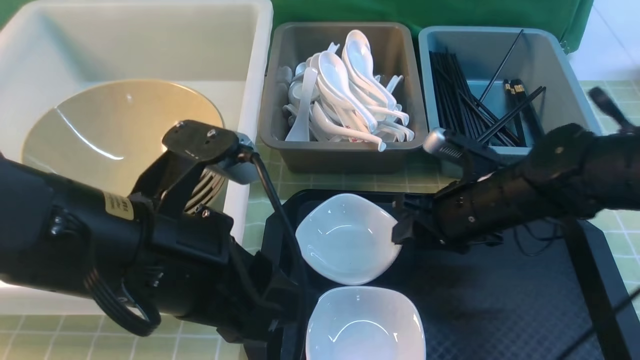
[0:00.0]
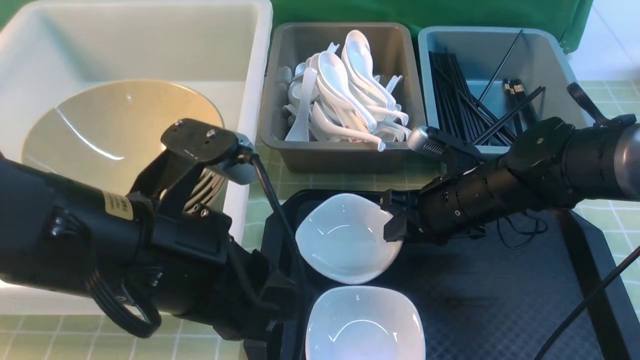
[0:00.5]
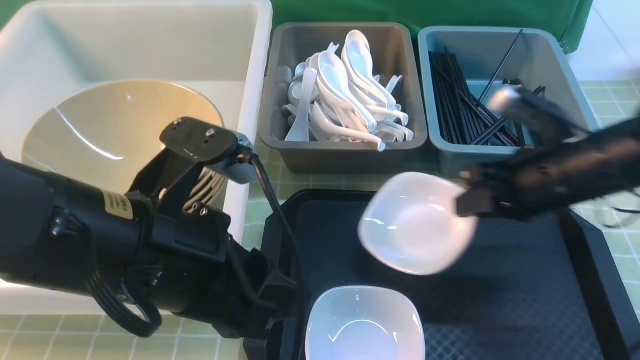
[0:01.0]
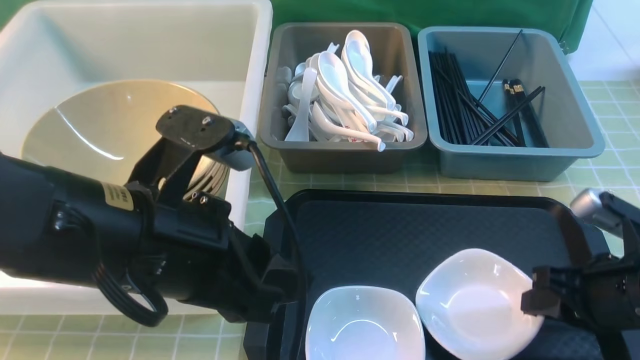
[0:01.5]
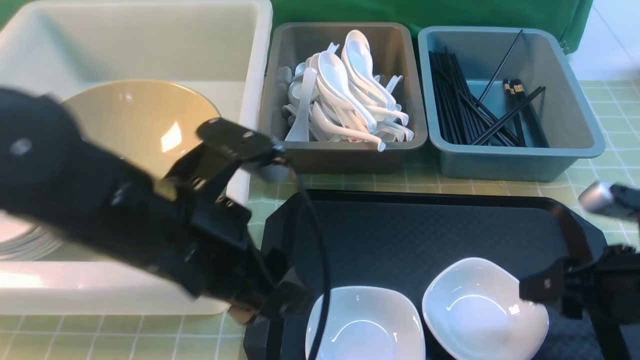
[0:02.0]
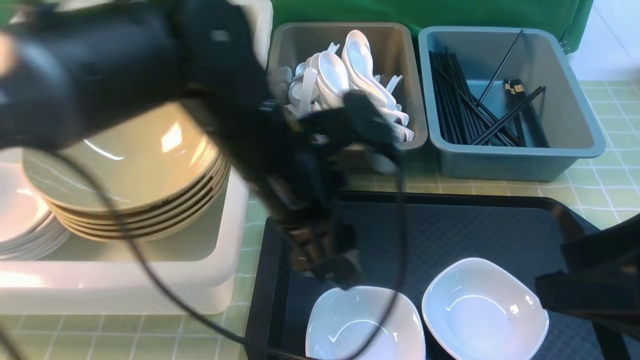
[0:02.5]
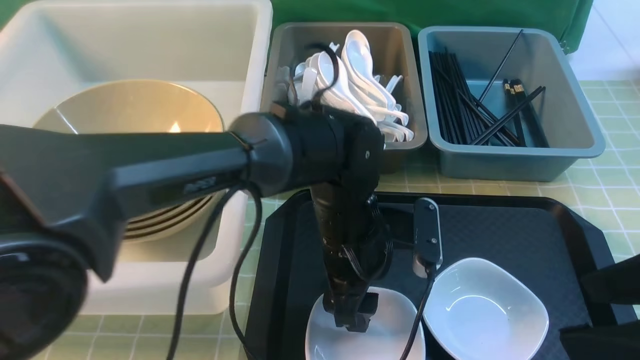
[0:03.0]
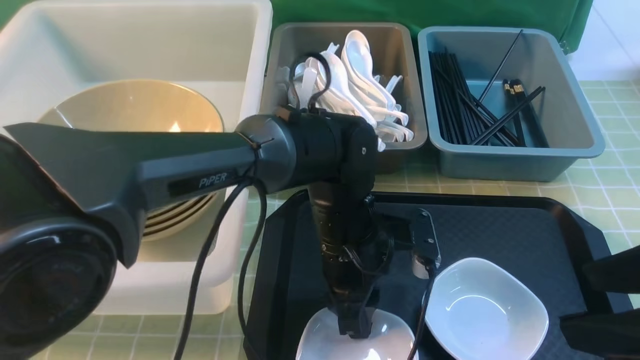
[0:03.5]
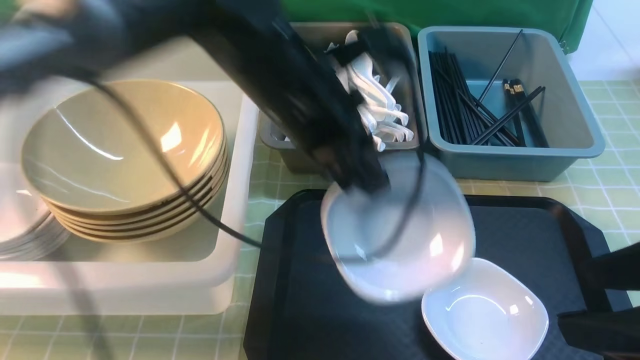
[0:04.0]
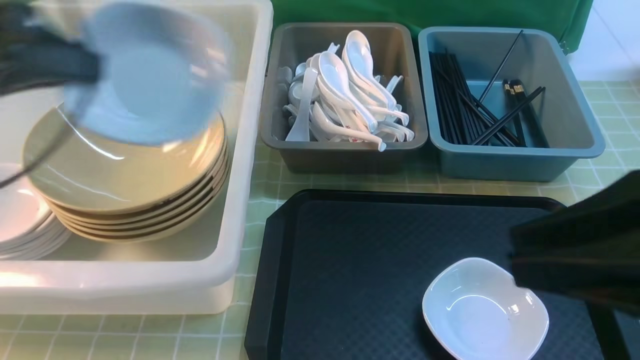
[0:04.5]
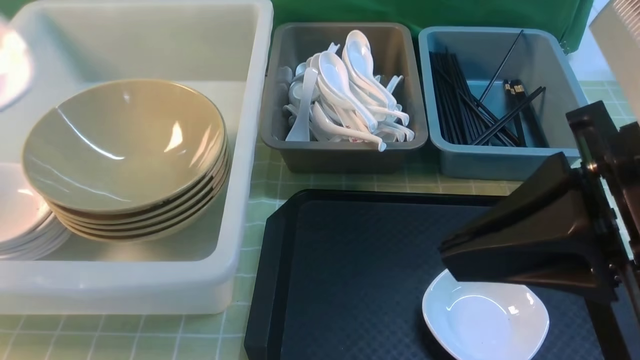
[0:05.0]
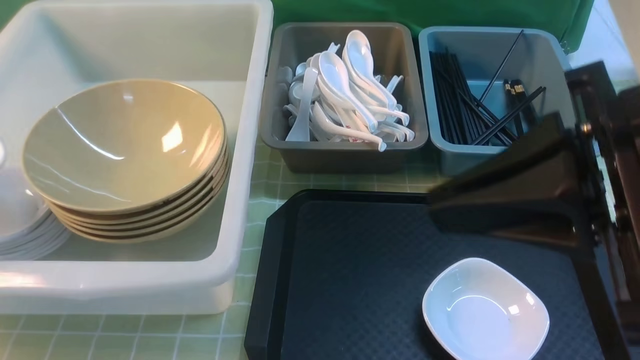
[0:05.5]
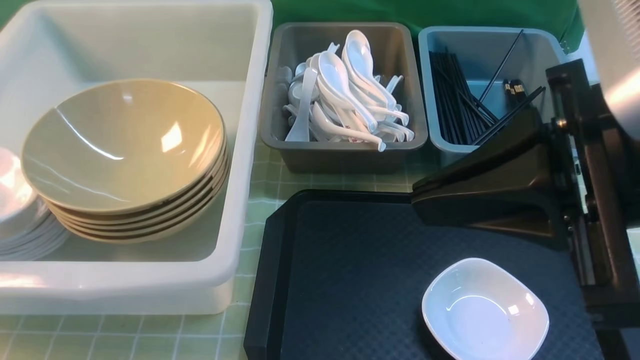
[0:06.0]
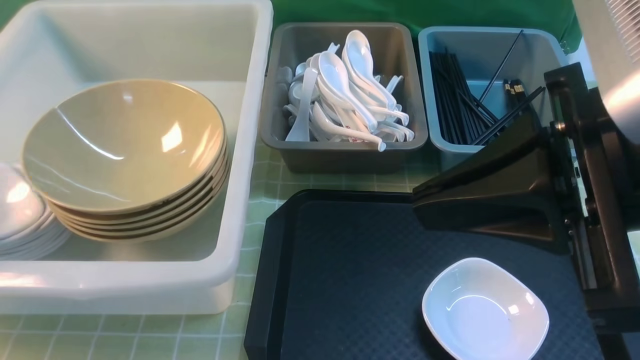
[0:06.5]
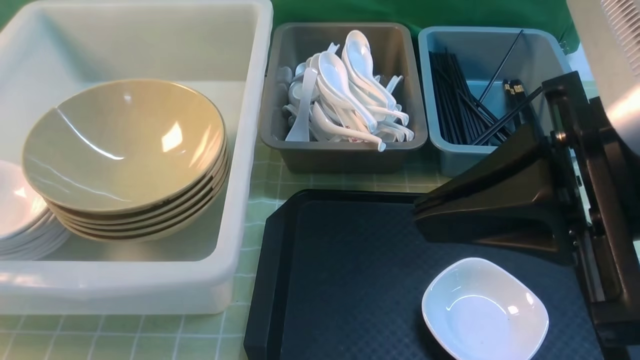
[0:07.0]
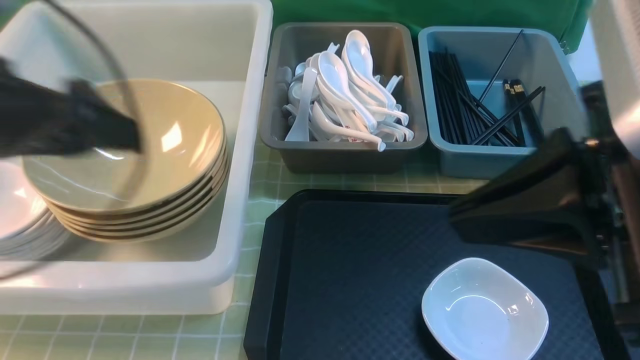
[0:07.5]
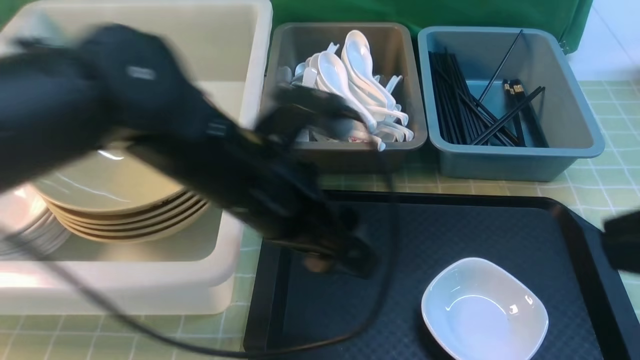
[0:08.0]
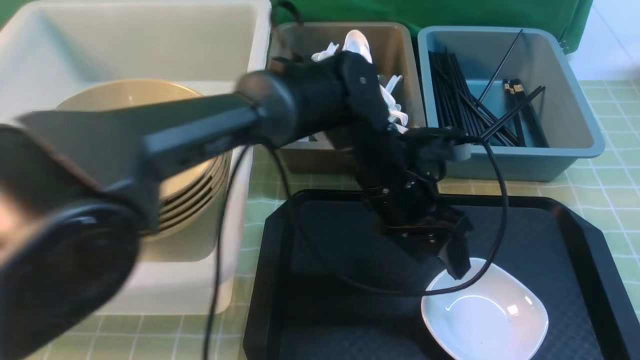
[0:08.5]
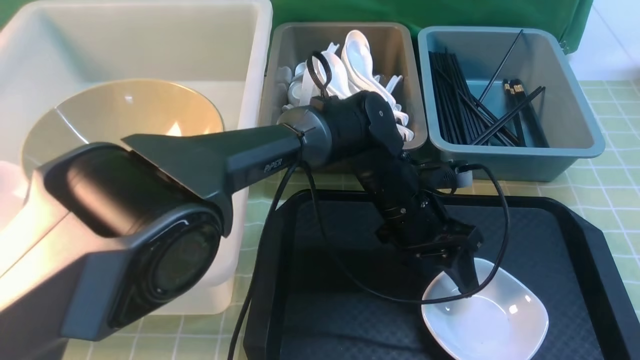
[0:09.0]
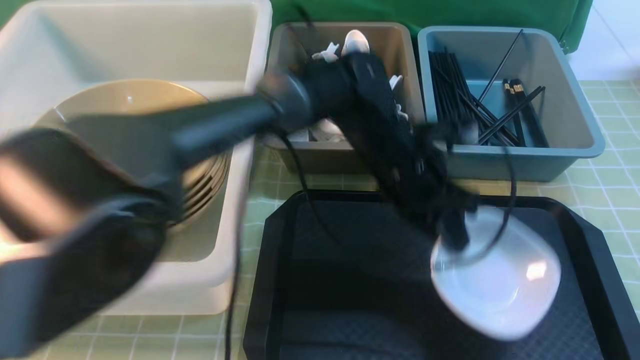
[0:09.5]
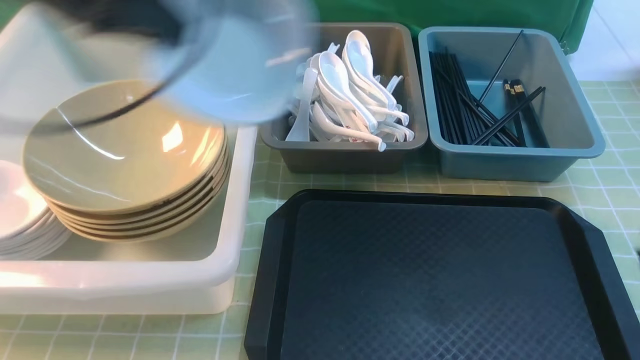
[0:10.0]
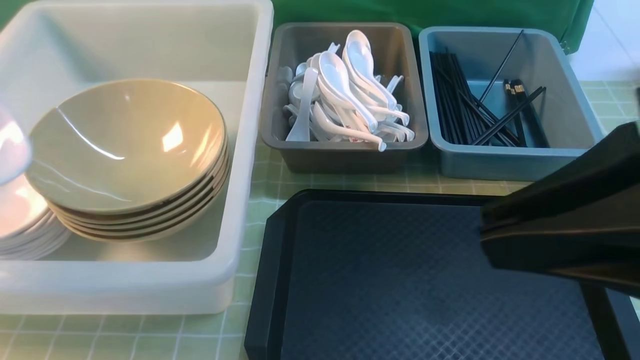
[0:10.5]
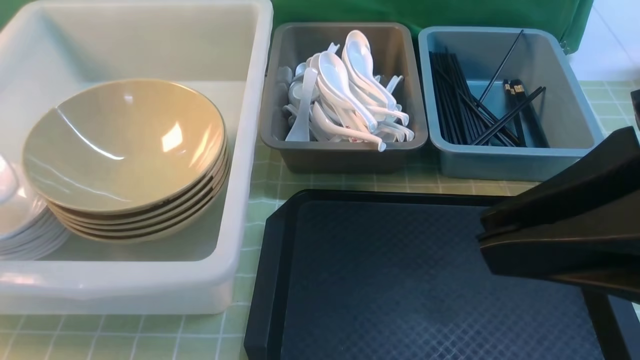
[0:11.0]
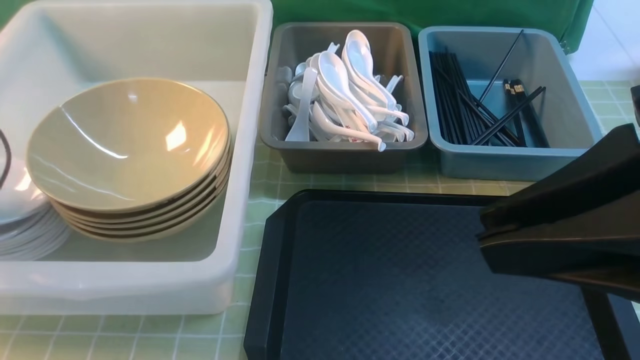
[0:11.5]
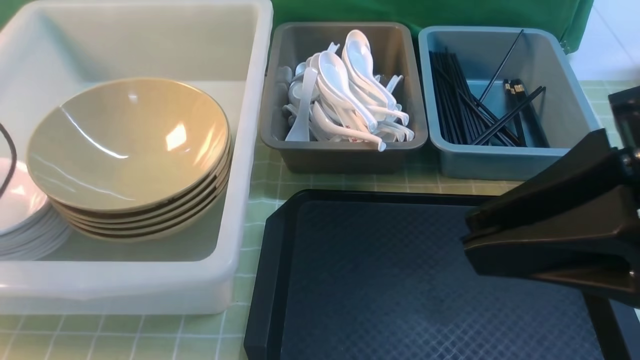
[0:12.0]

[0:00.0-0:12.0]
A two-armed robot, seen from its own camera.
Task of the whole recording: on green table put chopsticks spoon bowls plates into blue grey white boxes.
Step, 0:01.0 to 0:02.0: use the right arm to put the plate on the tray.
Step, 0:02.5 to 0:03.5: use the left arm to grab the plate.
Step, 0:04.0 to 0:06.5: use the left arm to put the plate into the large storage box on the left.
Step, 0:07.0 to 0:09.0: use the left arm to grab the plate.
0:00.0 to 0:02.0: The right gripper shifts approximately 15 cm backward and to the right, and closes, then reopens.
0:02.0 to 0:04.0: The left gripper travels forward by about 10 cm, reaches roughly 15 cm downward, then returns, and closes up; the right gripper heads upward and backward, covering roughly 15 cm.
0:04.0 to 0:06.0: The left gripper shifts about 40 cm to the left. Meanwhile the right gripper heads to the left and upward, covering roughly 10 cm, and closes up.
0:06.0 to 0:08.0: The right gripper travels backward and to the right by some 10 cm. Meanwhile the left gripper moves to the right, about 40 cm, and opens its fingers.
0:08.0 to 0:10.0: The left gripper moves to the left and upward, roughly 20 cm, and closes its fingers.
0:10.0 to 0:12.0: The left gripper is displaced to the left and downward by approximately 20 cm, and opens its fingers. The right gripper shifts by roughly 5 cm.

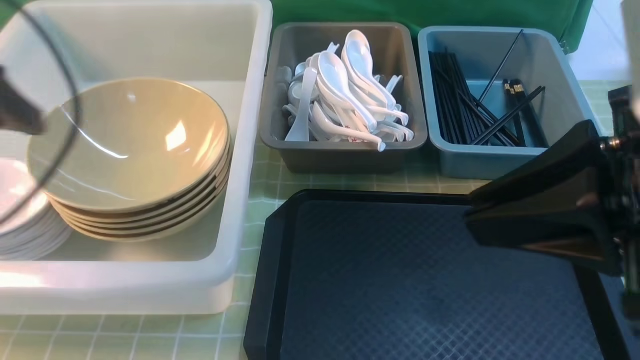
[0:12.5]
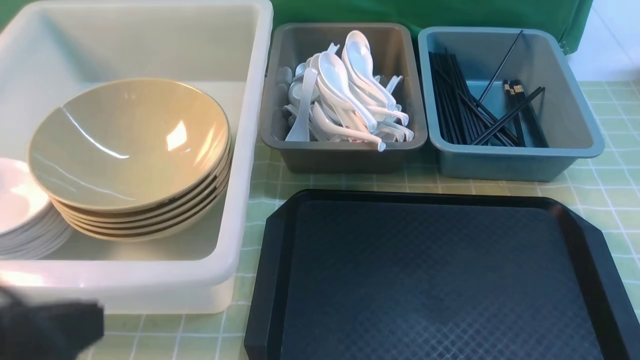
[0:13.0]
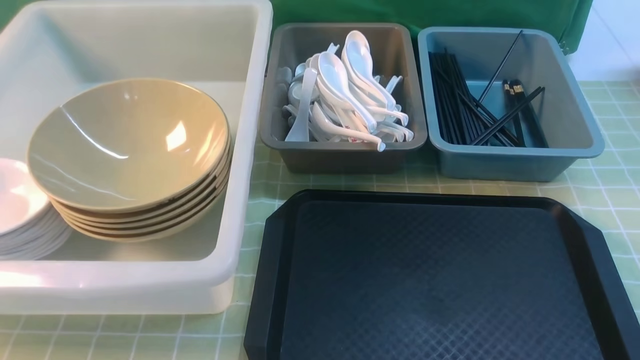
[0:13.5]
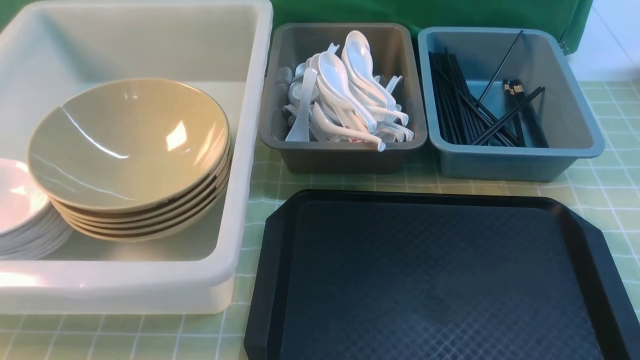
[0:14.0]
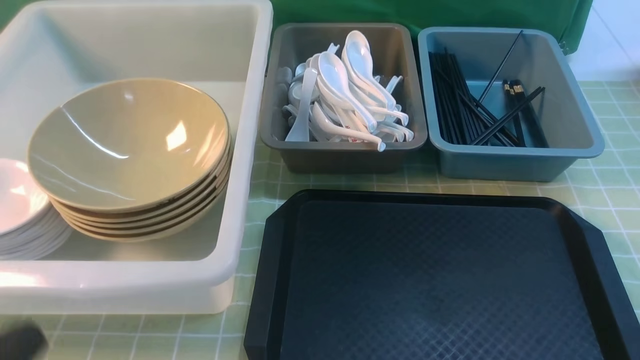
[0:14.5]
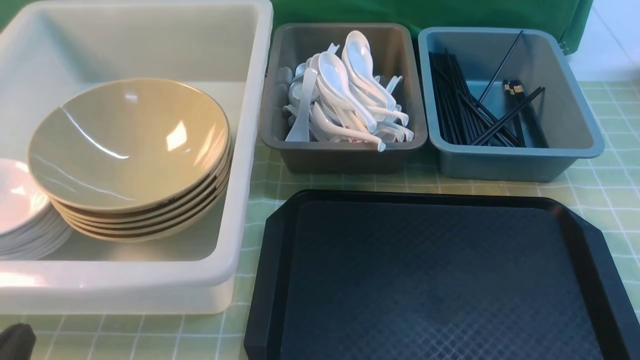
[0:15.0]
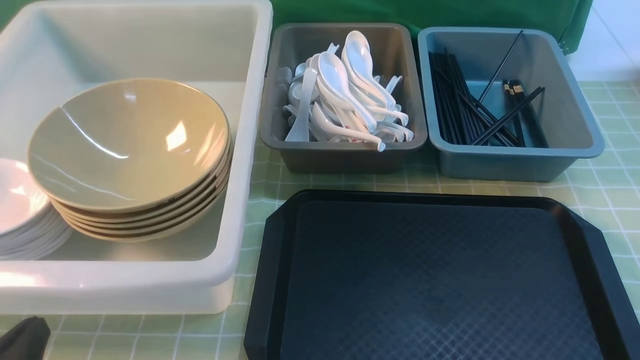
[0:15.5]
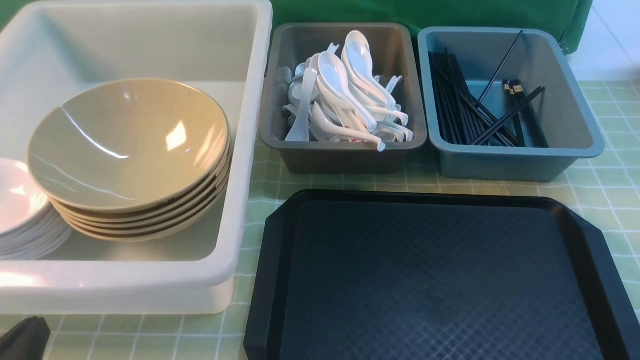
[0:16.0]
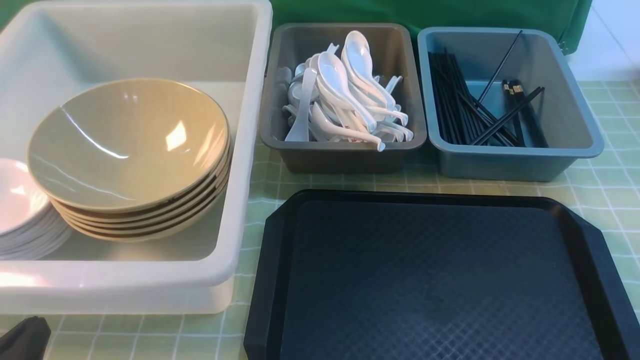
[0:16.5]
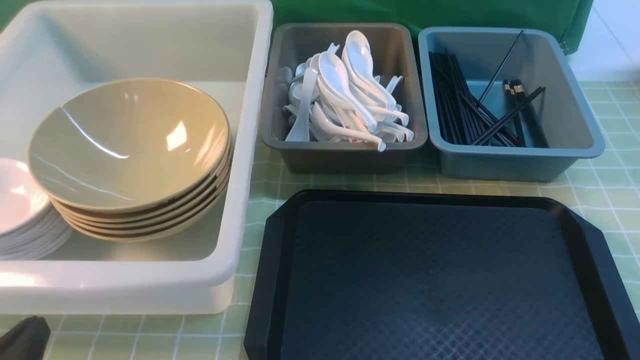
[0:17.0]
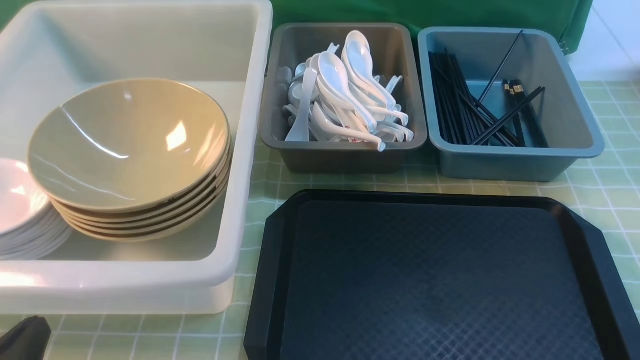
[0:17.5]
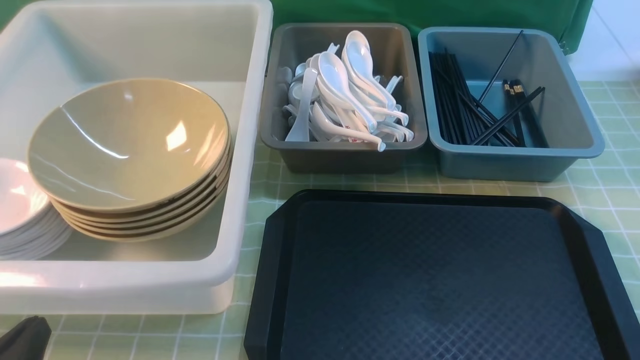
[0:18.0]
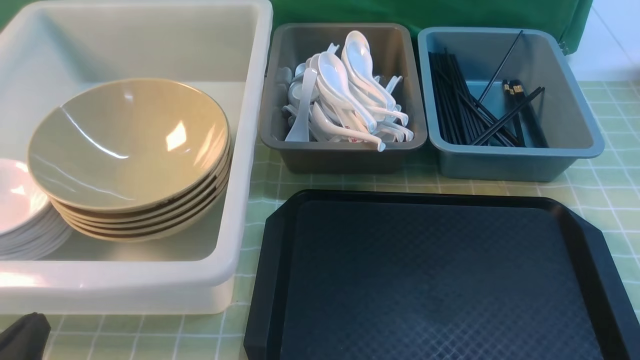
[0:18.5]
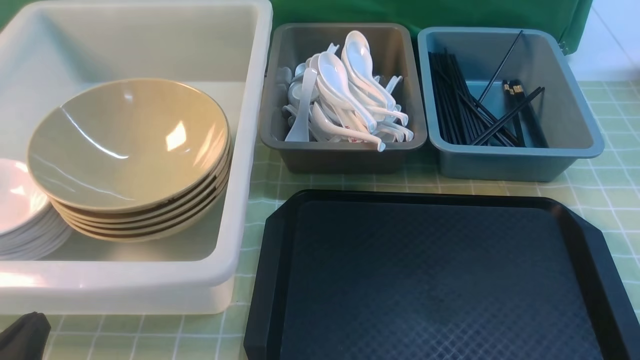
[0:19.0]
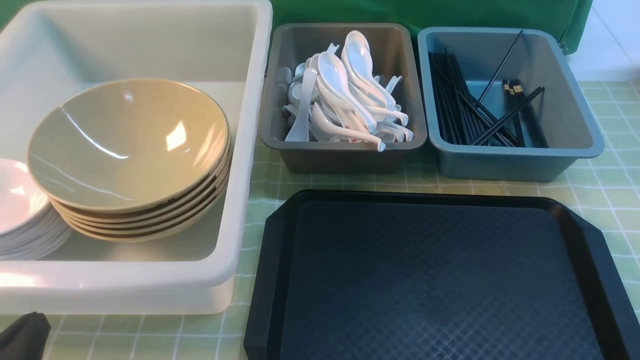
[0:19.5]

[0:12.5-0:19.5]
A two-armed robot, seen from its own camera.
Task of the whole recording: on green table put chopsticks spoon bowls plates into blue grey white boxes.
0:12.5 to 0:14.5: The left gripper moves backward and downward, some 20 cm, and closes up, while the right gripper is displaced downward, backward and to the right by roughly 20 cm.
0:17.5 to 0:19.5: The two grippers keep their place.
